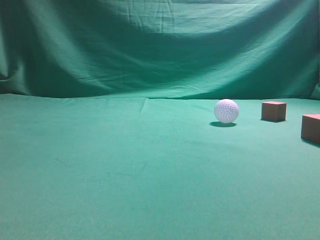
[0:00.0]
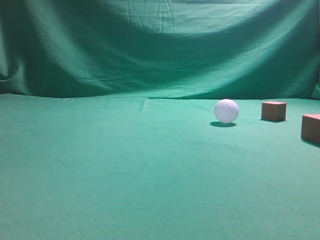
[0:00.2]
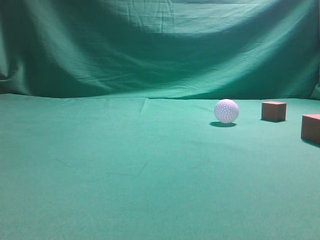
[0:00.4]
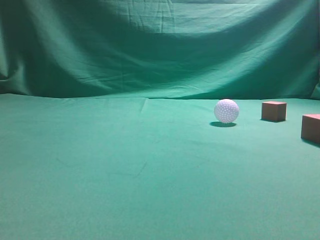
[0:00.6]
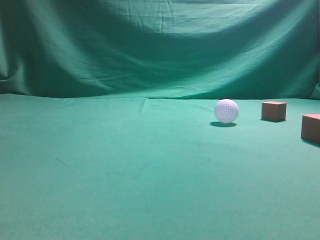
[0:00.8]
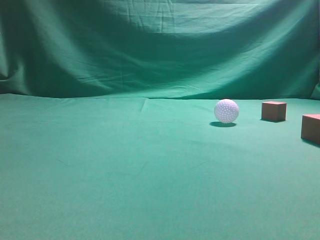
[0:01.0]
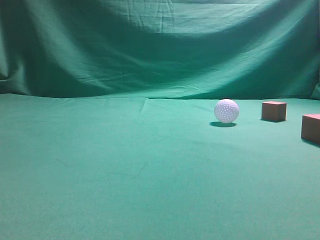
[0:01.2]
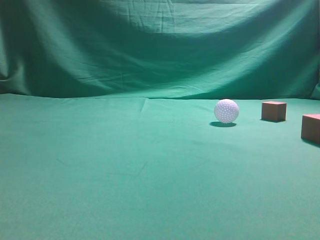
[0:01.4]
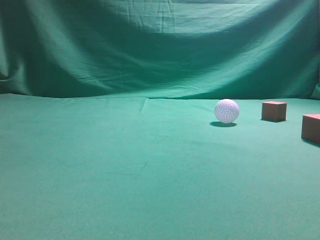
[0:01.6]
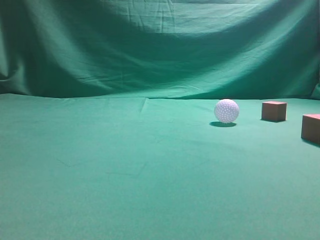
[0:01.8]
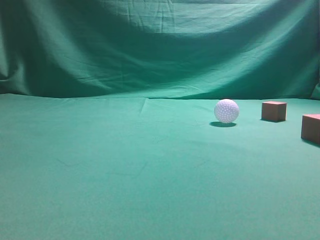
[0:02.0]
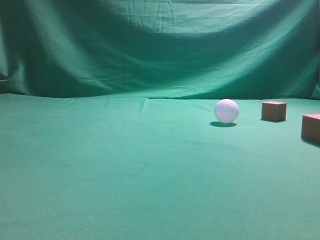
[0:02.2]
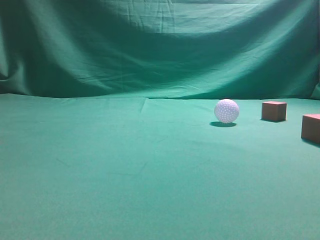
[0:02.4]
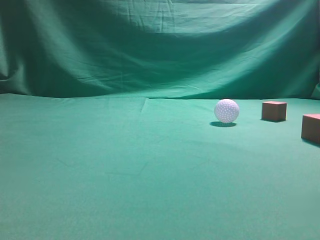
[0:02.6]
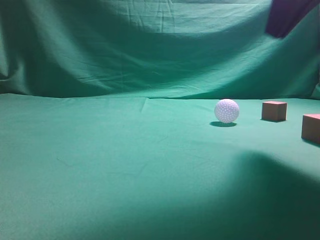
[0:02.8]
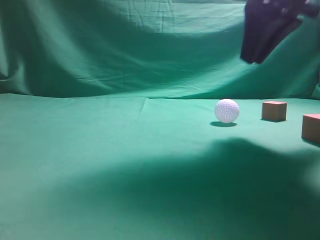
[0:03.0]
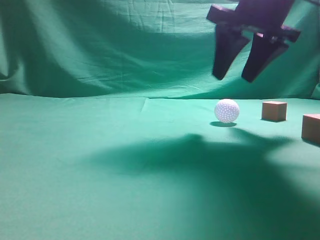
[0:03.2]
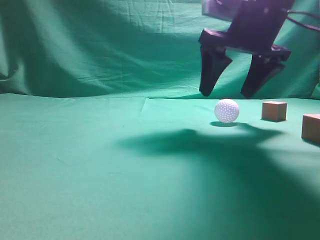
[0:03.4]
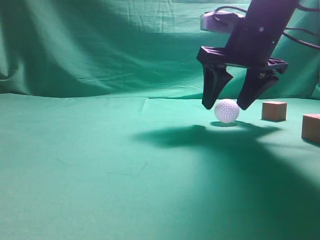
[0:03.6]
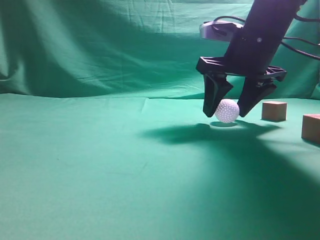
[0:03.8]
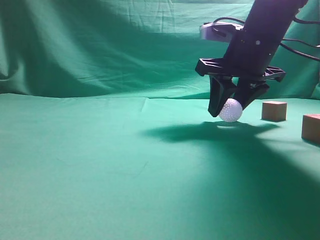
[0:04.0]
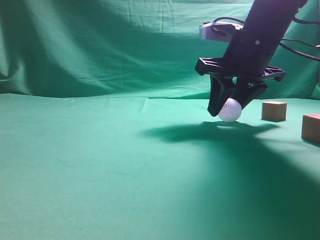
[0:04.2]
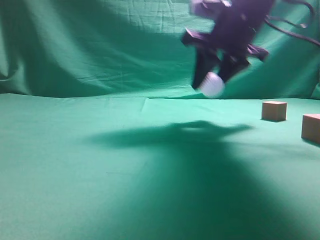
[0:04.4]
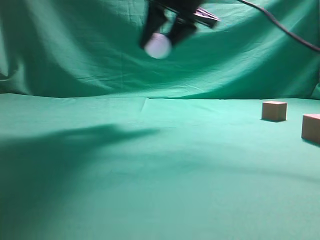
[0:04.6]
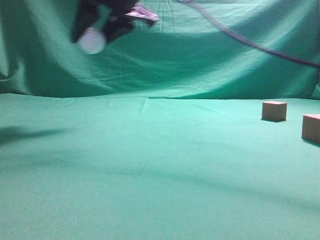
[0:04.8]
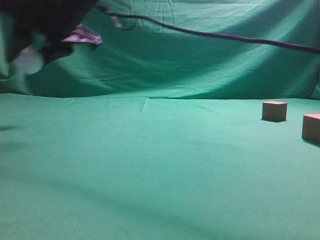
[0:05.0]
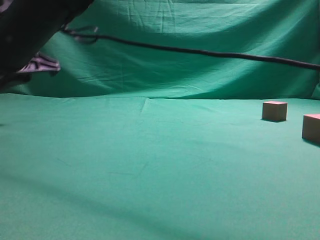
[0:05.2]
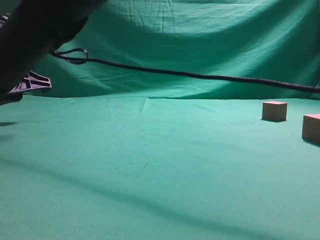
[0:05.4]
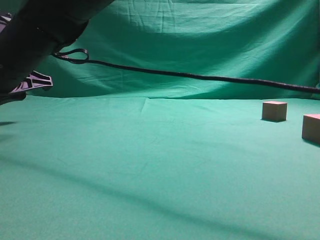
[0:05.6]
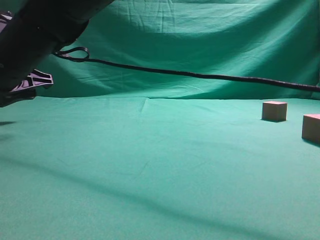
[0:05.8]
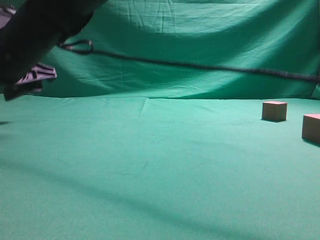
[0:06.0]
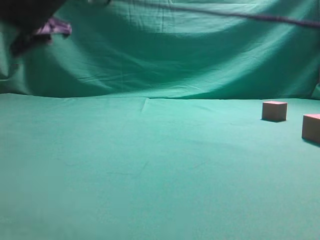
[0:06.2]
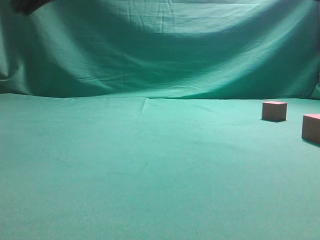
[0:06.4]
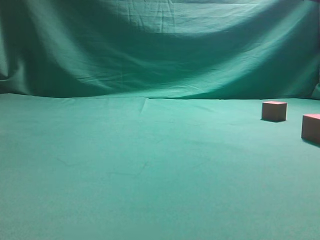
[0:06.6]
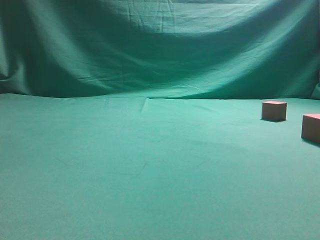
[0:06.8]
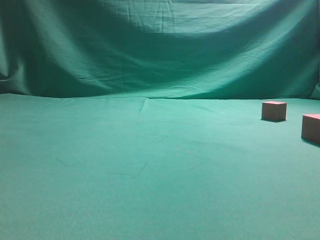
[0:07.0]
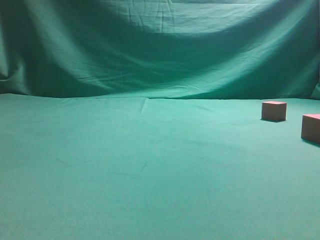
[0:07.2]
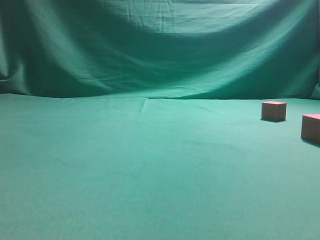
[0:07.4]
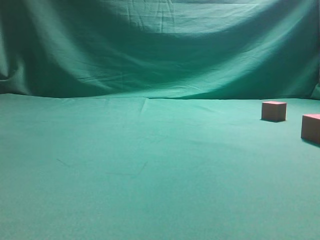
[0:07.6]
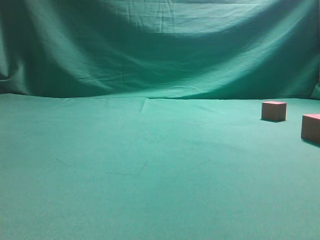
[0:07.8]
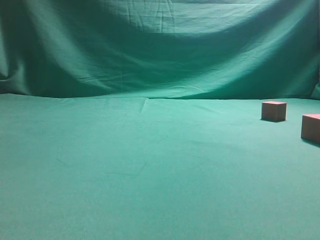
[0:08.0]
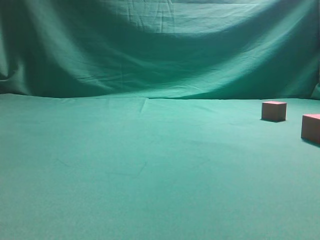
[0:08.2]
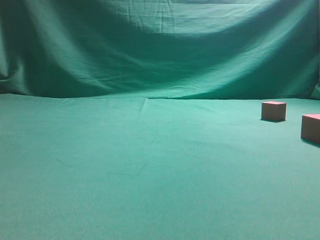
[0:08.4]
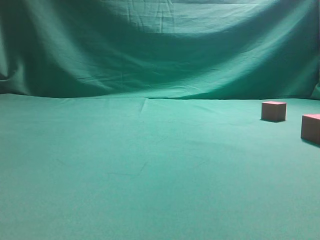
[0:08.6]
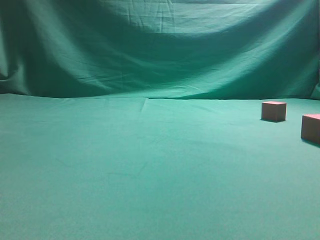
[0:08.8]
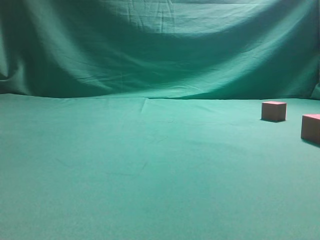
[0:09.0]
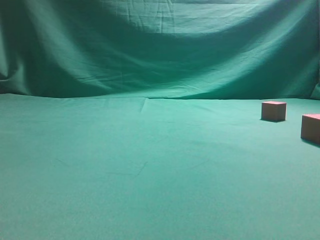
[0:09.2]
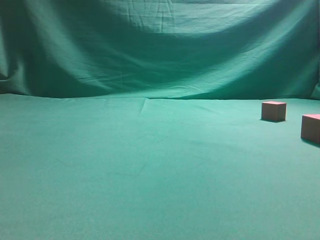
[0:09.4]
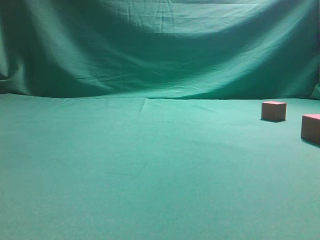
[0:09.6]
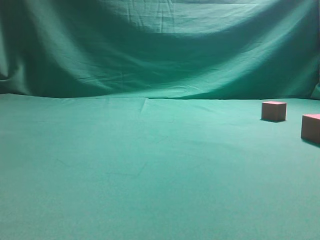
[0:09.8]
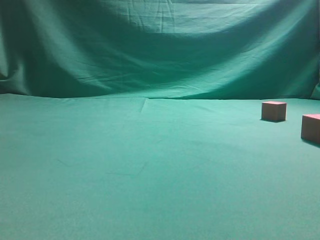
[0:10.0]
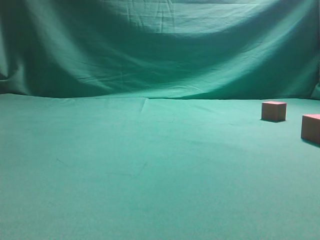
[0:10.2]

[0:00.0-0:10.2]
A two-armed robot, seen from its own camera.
Step, 0:00.0 to 0:04.4: Grasp the spherical object on the right side.
0:01.4 to 0:03.0: The right gripper shifts roughly 30 cm forward and to the left.
0:03.0 to 0:04.4: The right gripper is displaced forward and to the left by roughly 10 cm, and opens and closes again.
0:04.4 to 0:05.8: The right gripper travels to the left by approximately 30 cm, and opens its fingers.
0:05.8 to 0:07.2: The right gripper travels upward and to the right by approximately 50 cm, and closes its fingers.
